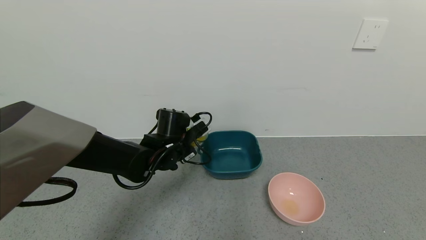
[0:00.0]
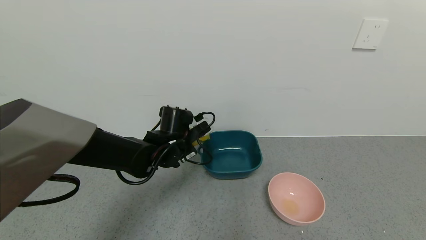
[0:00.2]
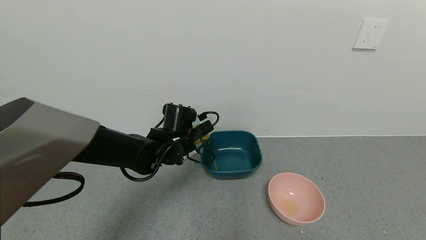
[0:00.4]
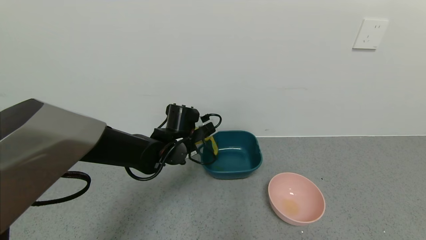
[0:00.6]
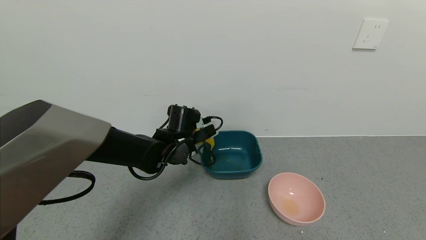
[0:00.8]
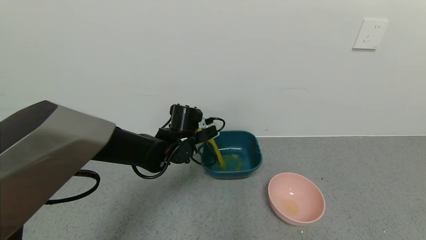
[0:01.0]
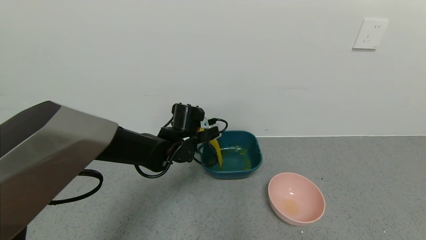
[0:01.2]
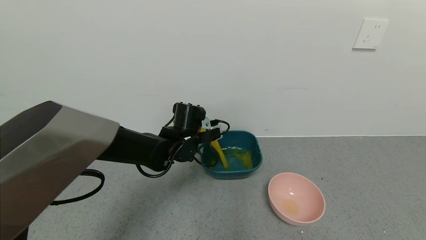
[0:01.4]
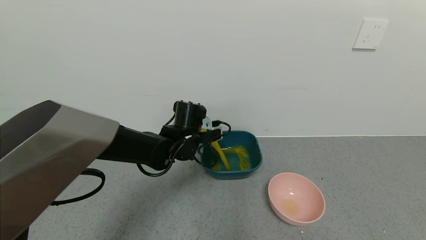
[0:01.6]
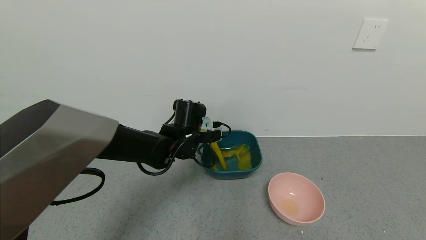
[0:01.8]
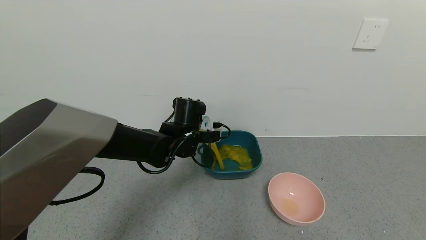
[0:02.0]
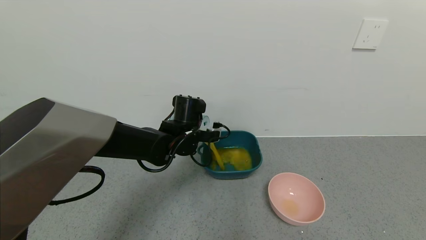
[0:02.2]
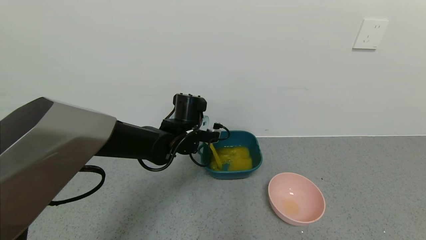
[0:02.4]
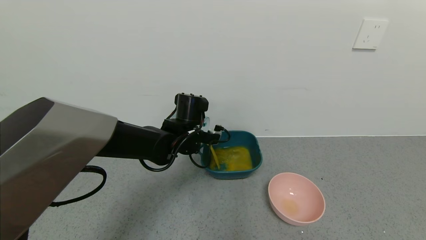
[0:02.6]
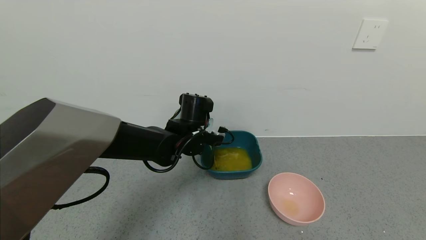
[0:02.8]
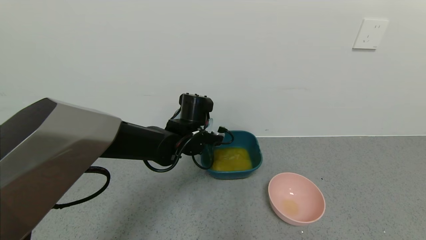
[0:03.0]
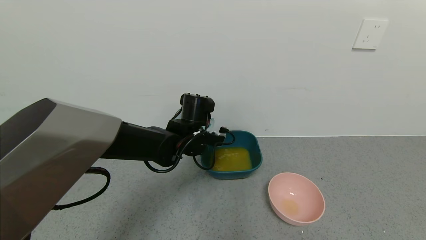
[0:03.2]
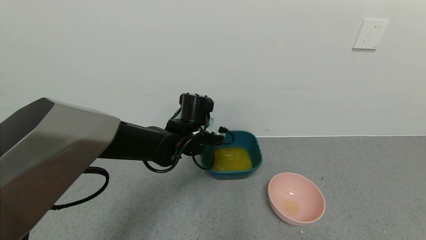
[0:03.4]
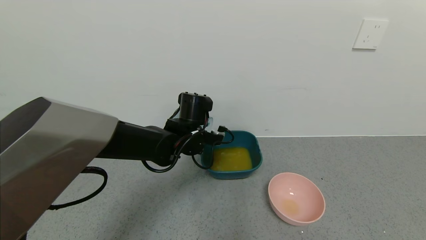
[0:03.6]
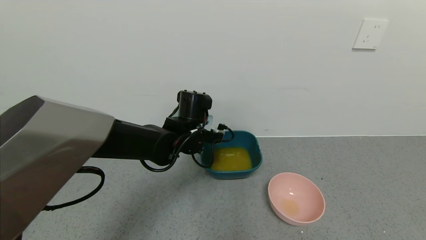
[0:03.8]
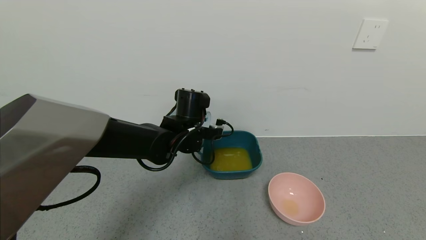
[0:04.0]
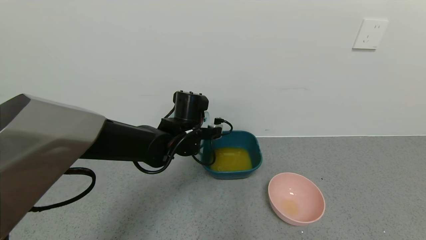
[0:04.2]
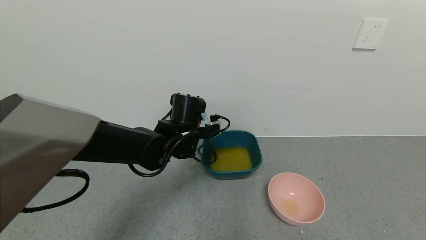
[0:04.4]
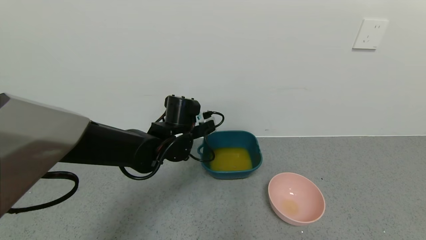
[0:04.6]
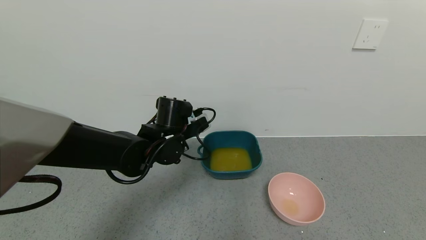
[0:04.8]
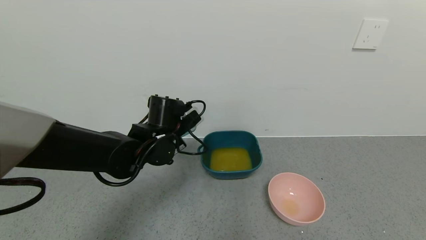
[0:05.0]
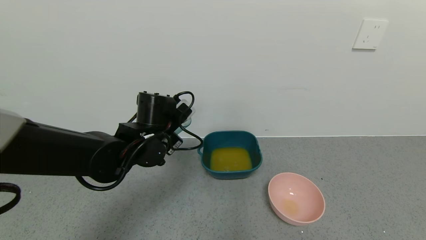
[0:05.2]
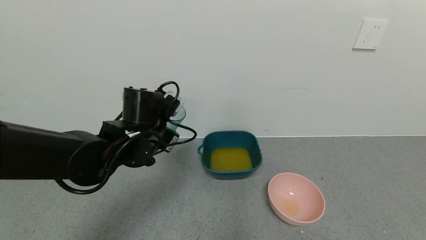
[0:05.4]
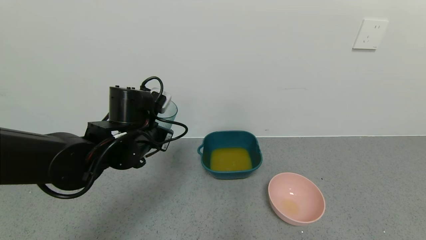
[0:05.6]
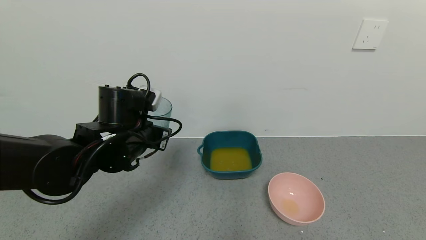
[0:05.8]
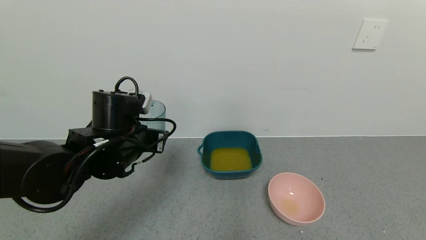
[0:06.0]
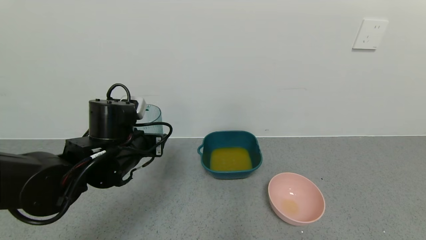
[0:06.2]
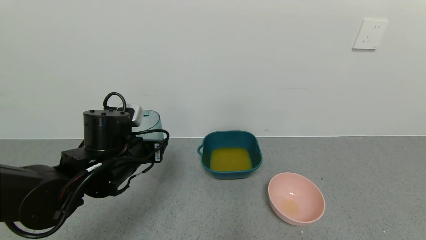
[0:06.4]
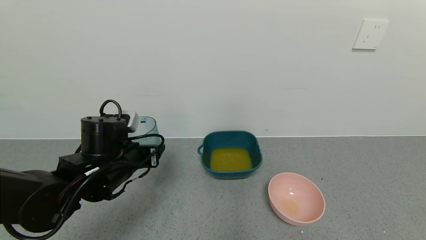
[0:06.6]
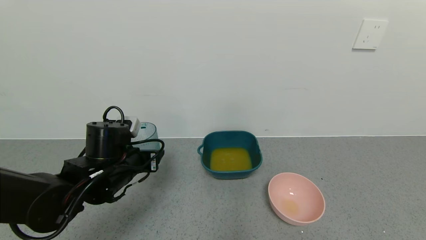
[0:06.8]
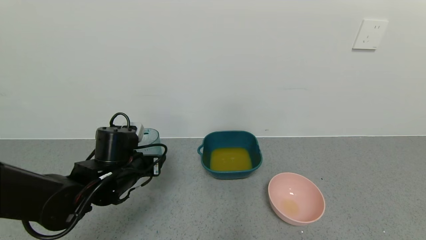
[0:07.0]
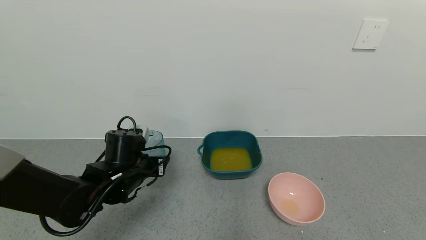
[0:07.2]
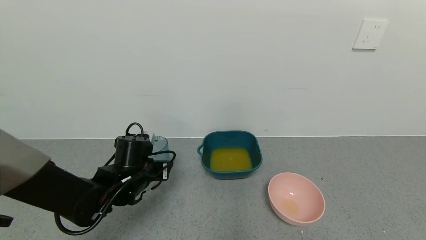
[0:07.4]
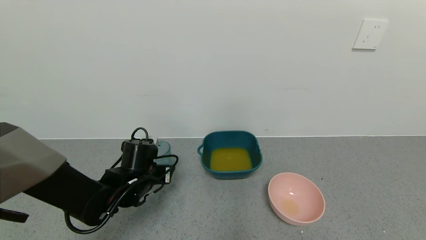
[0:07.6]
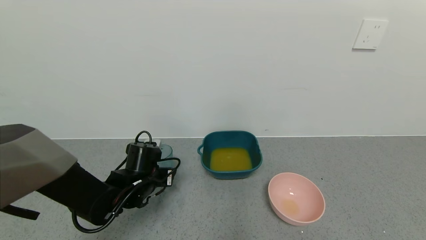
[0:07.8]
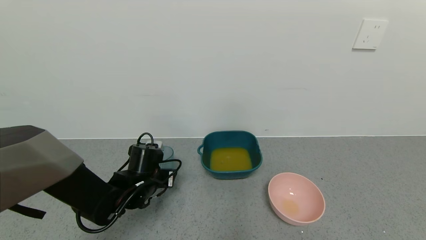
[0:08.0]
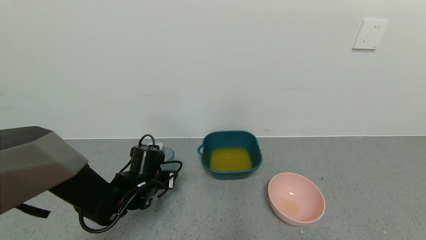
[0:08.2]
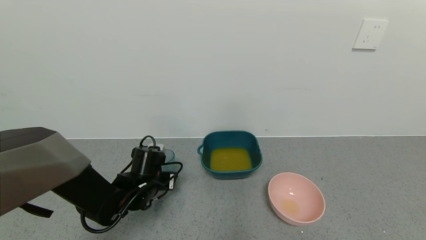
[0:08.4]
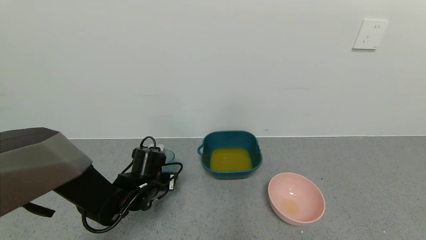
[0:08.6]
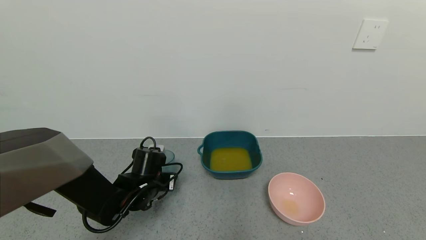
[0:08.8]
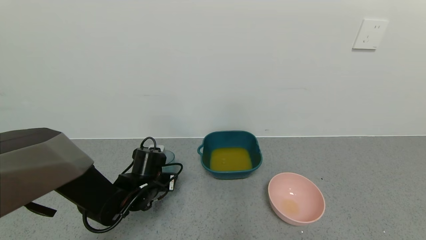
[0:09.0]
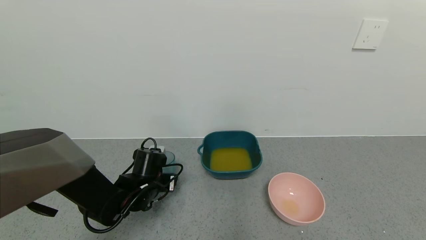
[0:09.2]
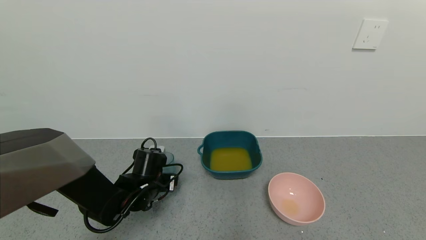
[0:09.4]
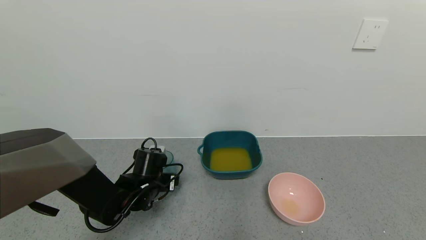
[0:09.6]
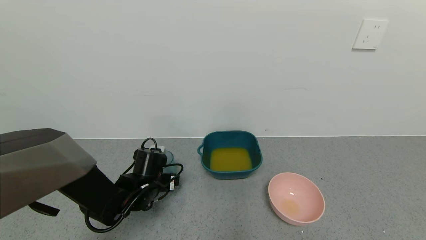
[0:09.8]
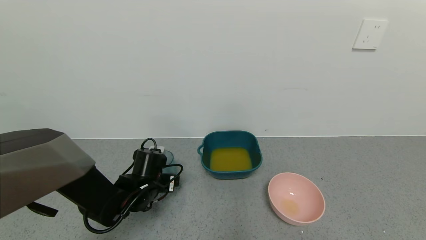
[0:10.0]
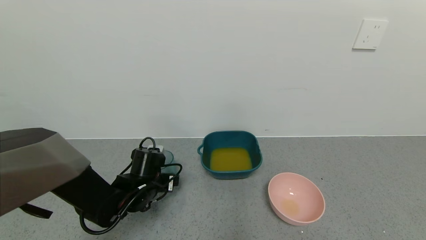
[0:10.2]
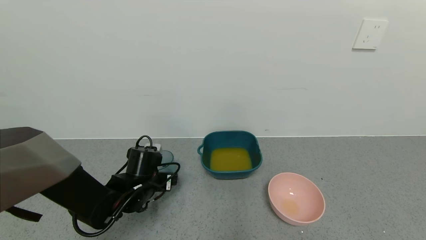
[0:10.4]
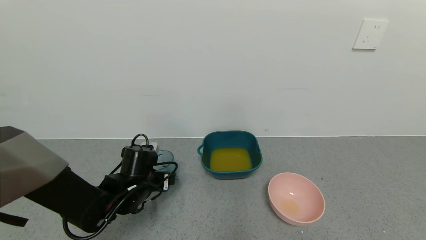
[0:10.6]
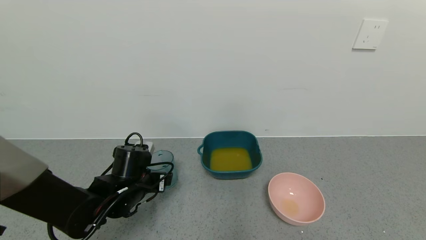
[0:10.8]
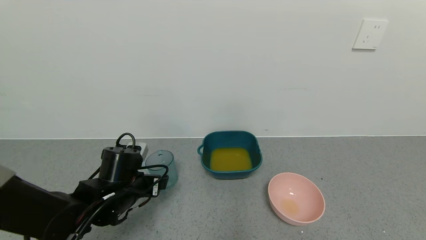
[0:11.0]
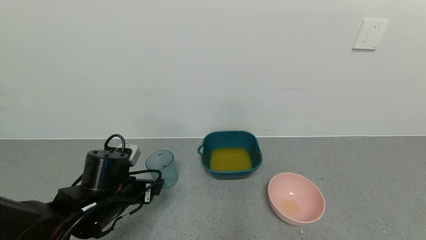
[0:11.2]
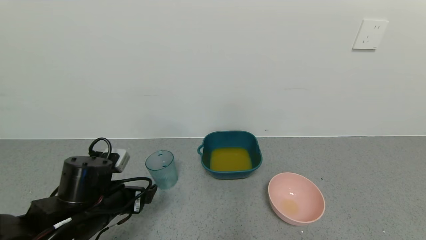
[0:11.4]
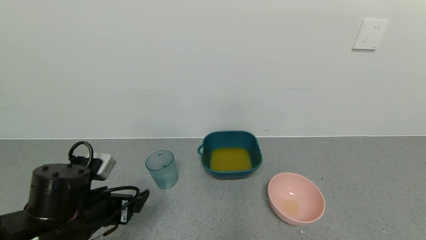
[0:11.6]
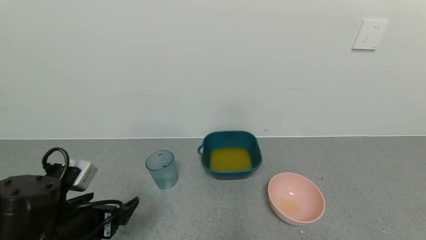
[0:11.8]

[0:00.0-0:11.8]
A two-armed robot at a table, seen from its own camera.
Task of the whole recording: use a gripper to pick up the cup and pour the liquid into a bowl or tray.
Step, 0:00.0 to 0:03.6: Pour the orange juice into the green bowl with the left gripper.
Step, 0:03.8 to 0:11.0: Place the glass cup with the left gripper.
0:04.4 to 0:06.0: The left gripper is displaced to the left and backward by some 10 cm.
0:06.0 to 0:07.4: The left gripper travels downward by approximately 10 cm.
0:07.4 to 0:08.8: The grippers make only small movements.
0:08.8 to 0:10.4: The left gripper opens up.
0:10.4 to 0:11.8: The left gripper heads backward and upward, covering roughly 20 cm.

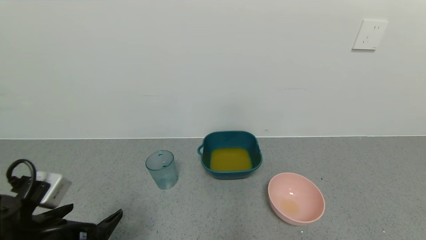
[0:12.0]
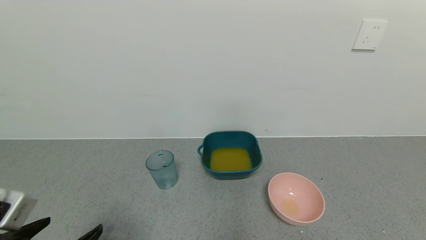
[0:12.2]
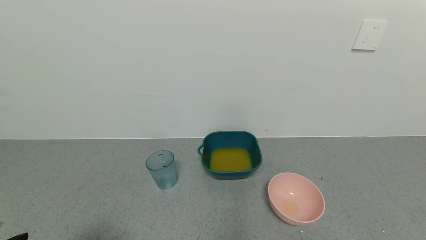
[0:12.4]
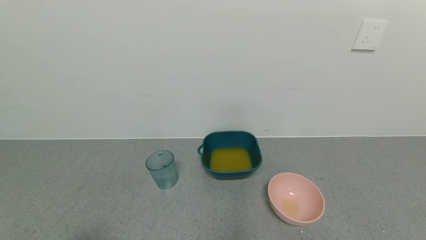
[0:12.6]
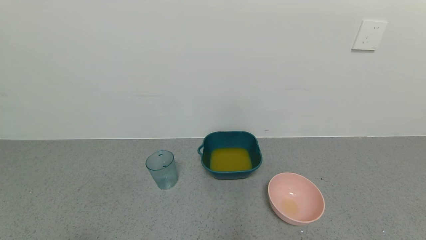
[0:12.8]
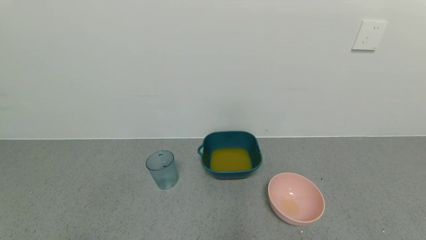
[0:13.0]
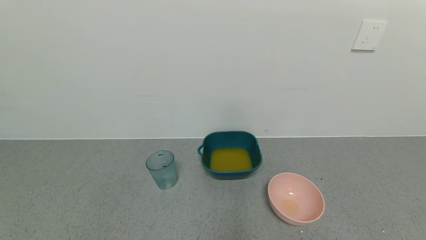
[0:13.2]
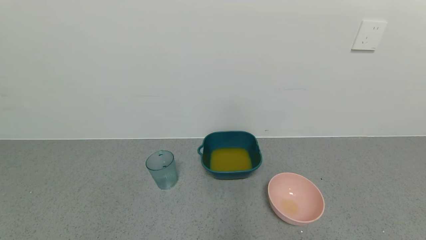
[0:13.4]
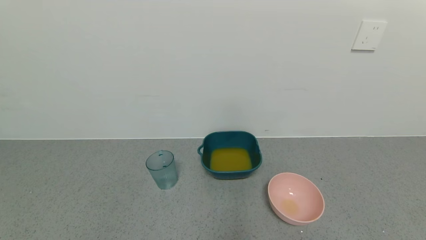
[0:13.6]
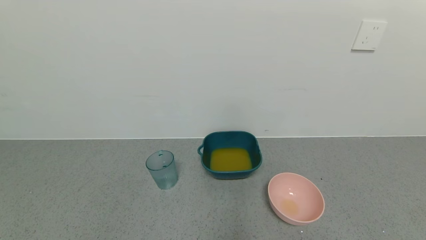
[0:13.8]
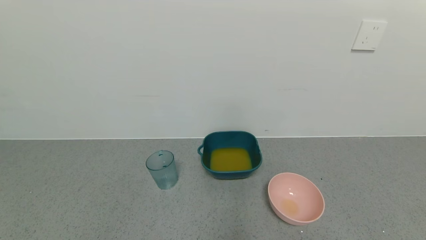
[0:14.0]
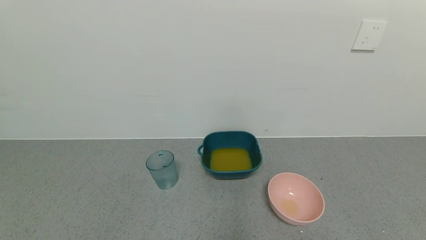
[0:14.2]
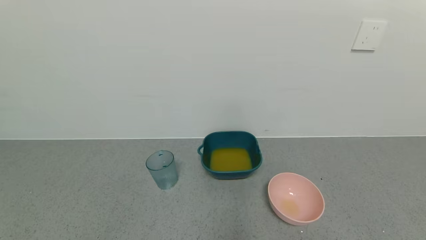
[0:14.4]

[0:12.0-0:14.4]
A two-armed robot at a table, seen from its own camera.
Task of the whole recording: use a gripper to pick up the cup and pour the liquid into a bowl or tray.
0:12.0 to 0:13.2: The left gripper travels backward and to the left by roughly 15 cm.
